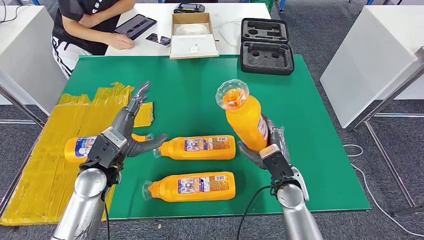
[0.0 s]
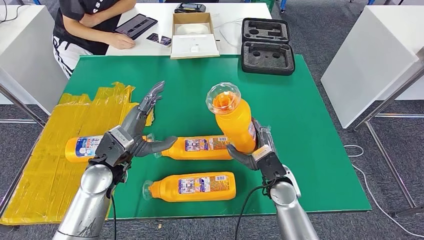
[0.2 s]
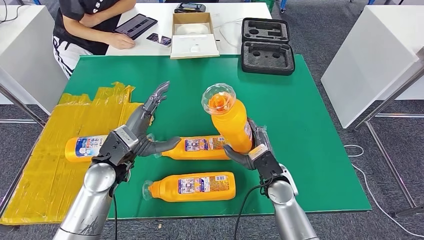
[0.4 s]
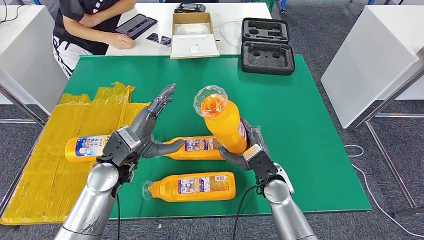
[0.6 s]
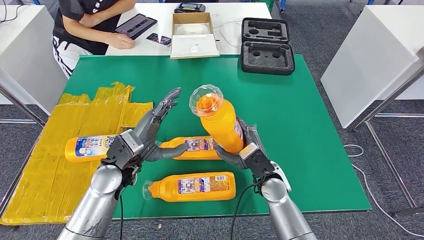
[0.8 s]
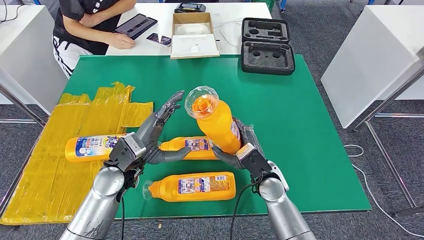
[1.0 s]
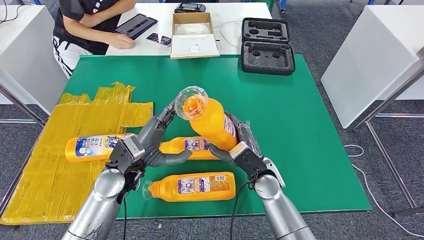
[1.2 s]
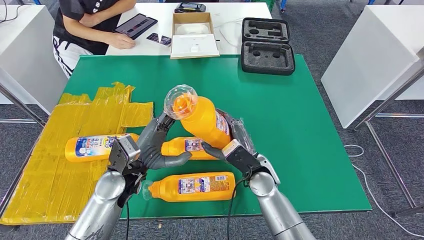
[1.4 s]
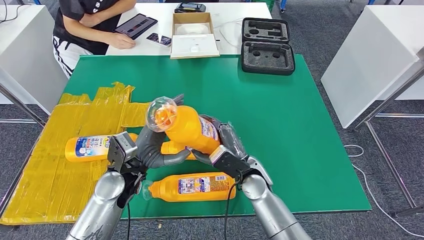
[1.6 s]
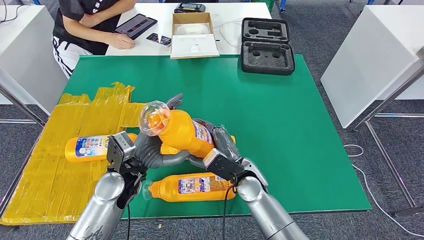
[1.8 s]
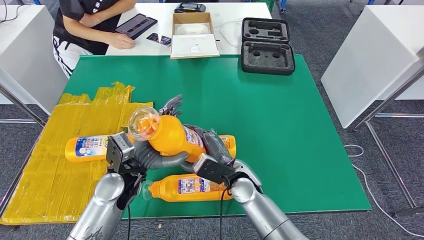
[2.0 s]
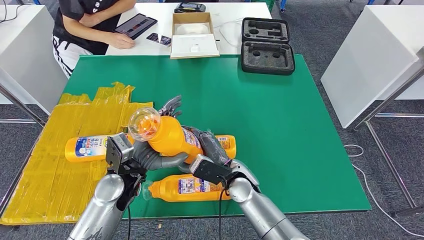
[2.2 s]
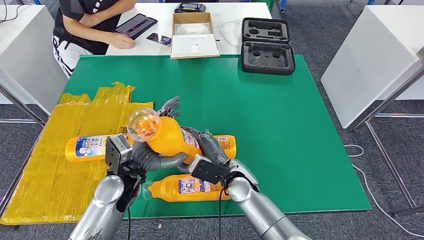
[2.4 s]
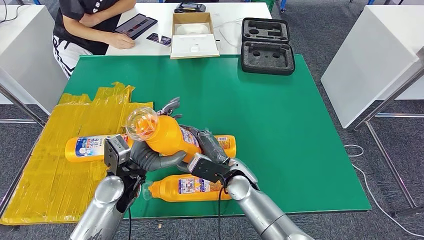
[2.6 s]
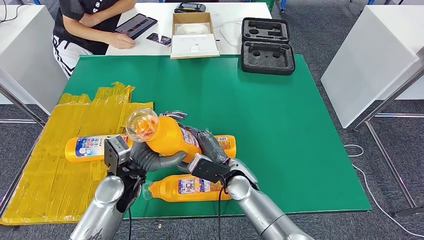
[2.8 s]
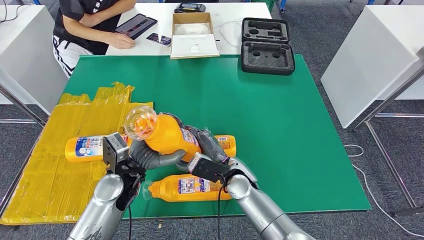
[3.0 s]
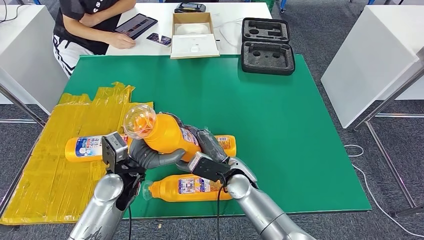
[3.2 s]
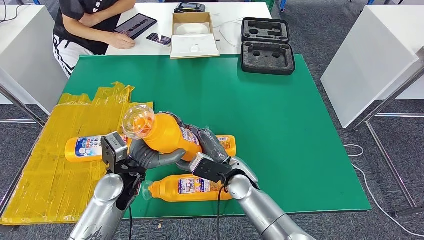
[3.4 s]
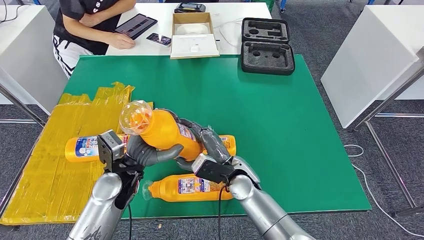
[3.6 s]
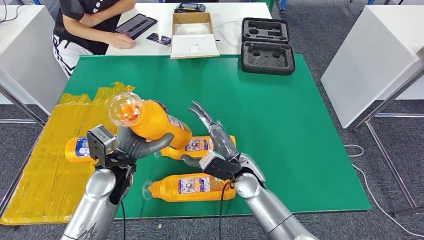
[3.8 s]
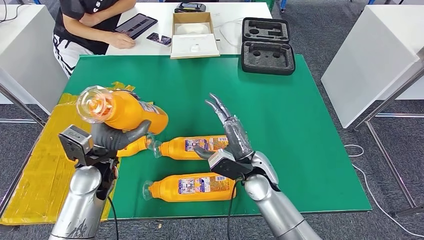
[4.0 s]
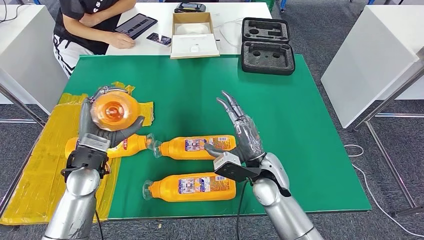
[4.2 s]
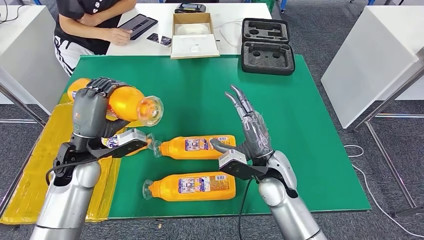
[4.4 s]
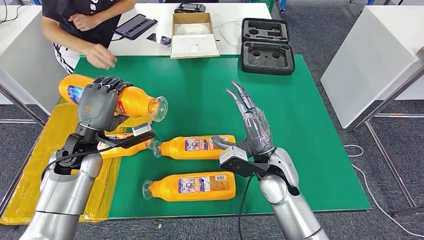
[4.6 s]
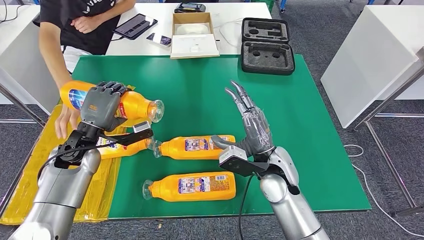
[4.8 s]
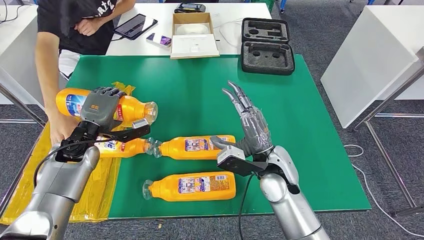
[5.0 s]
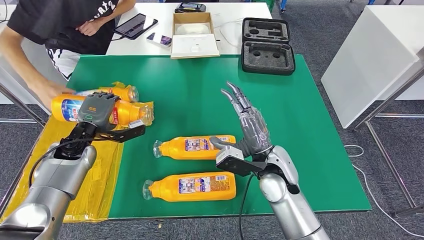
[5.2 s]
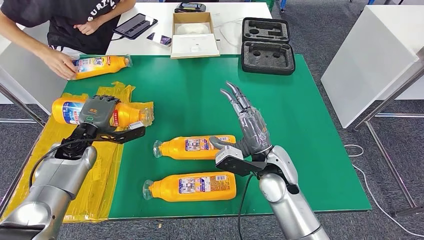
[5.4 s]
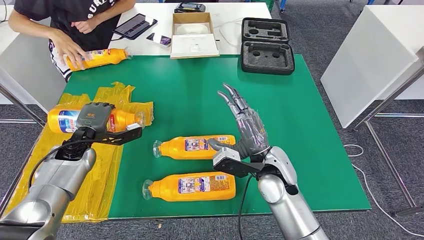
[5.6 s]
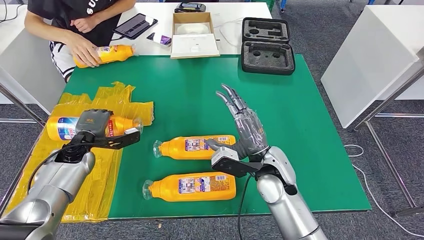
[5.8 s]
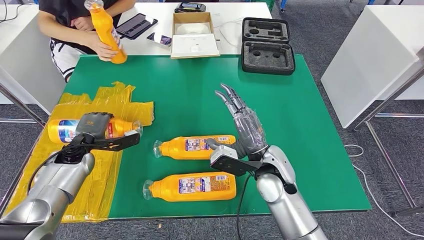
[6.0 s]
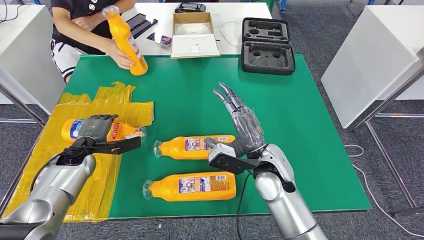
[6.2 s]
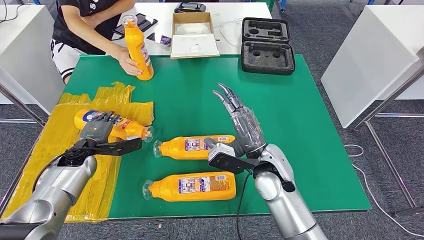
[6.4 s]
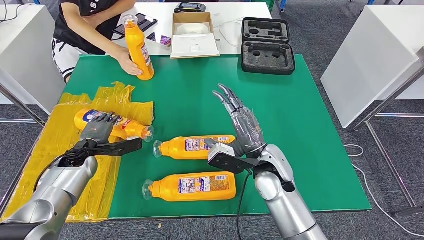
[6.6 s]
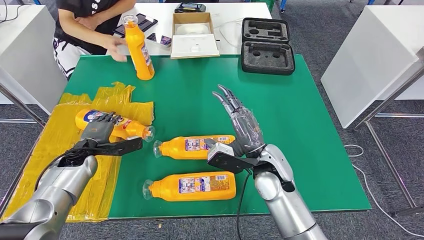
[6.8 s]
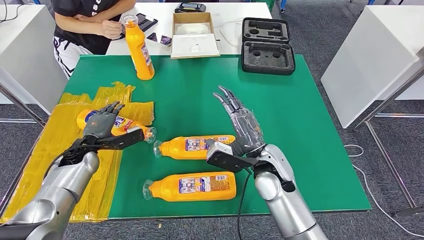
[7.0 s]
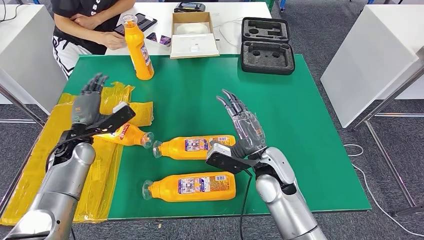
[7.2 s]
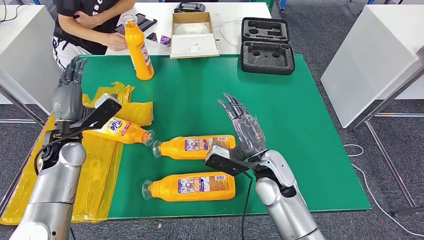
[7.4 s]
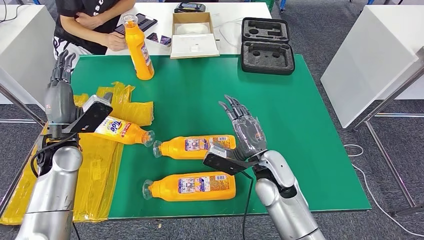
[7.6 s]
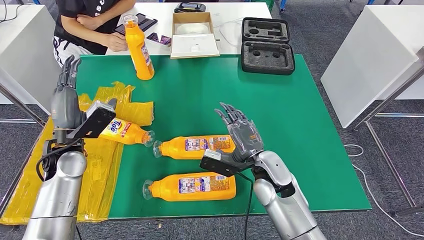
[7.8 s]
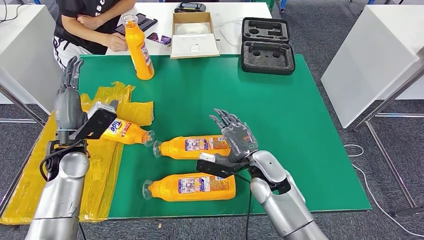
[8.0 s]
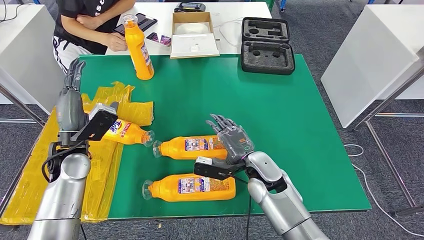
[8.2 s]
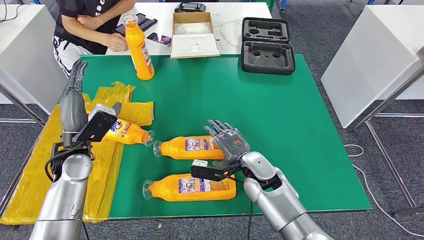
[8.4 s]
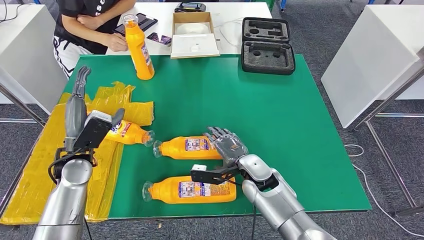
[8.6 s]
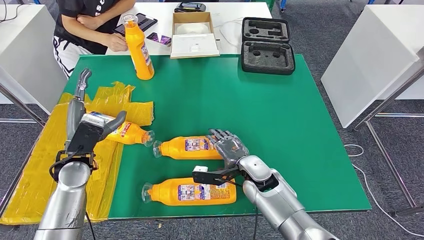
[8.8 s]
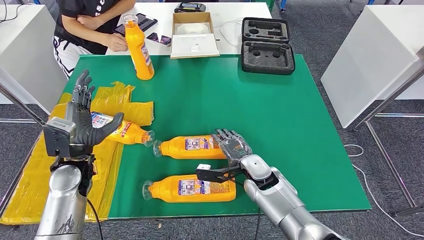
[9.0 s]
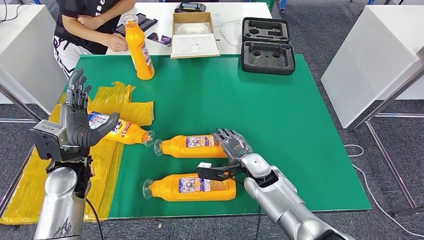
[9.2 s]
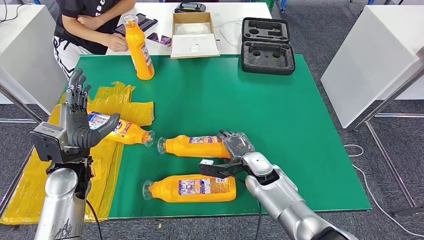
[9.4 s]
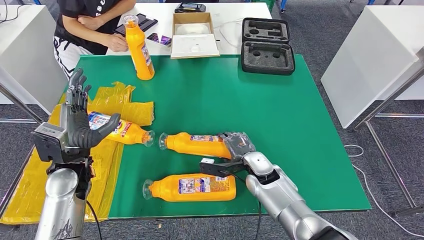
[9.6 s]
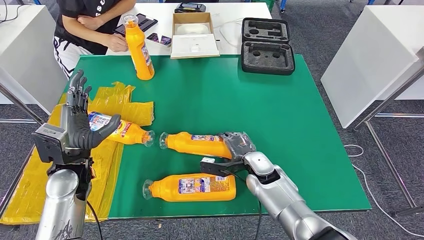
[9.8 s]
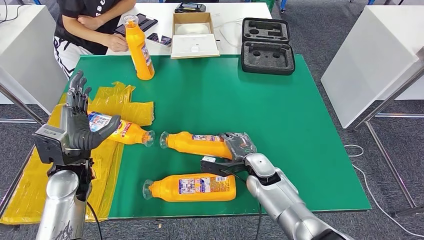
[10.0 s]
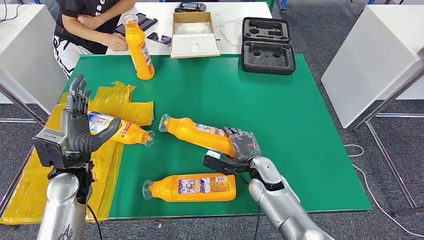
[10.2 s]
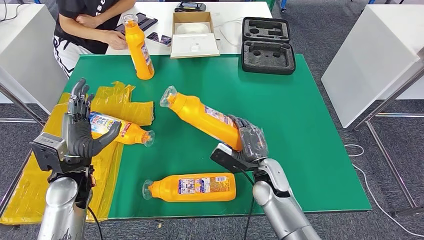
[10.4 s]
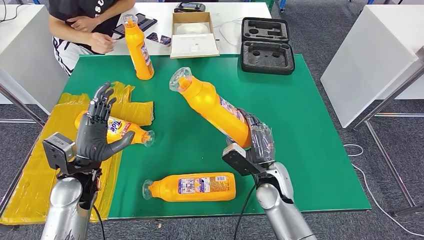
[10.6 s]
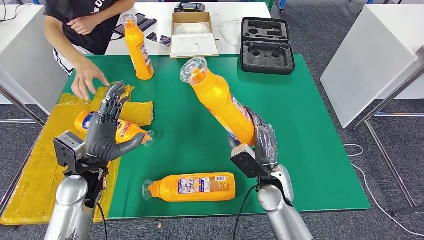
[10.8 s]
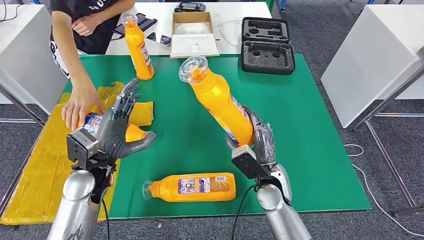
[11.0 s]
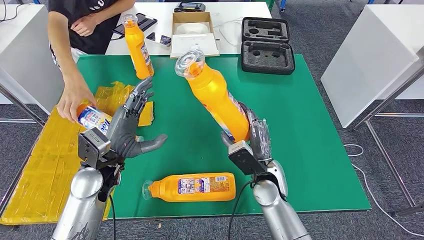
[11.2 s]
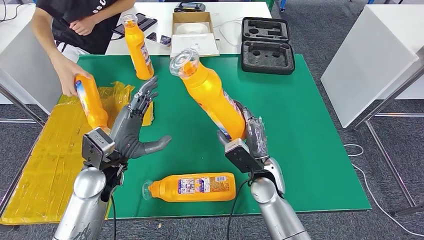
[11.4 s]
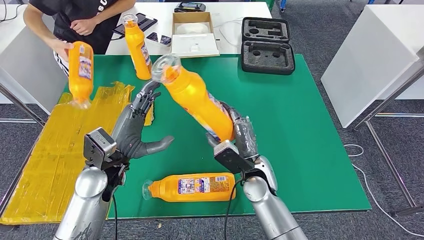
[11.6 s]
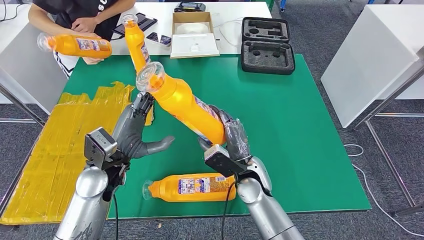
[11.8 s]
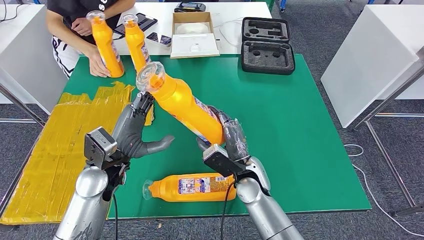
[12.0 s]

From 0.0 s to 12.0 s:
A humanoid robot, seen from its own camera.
Step, from 2.0 s to 3.0 s: Pick up the fast-moving consumer goods bottle from the table.
Step, from 3.4 s to 7.0 s: Flip the fast-moving consumer goods bottle to the front side.
From 0.0 s to 1.6 s: The right hand travels to the left by some 10 cm. The left hand travels to the right by about 5 cm.
From 1.6 s to 3.0 s: There are only small adjustments of the hands.
From 4.4 s to 6.0 s: The left hand goes roughly 15 cm downward, to the left and forward.
From 6.0 s to 7.6 s: The left hand travels upward by approximately 10 cm.
From 7.6 s to 9.0 s: The right hand goes roughly 5 cm downward. Meanwhile the left hand moves approximately 5 cm.

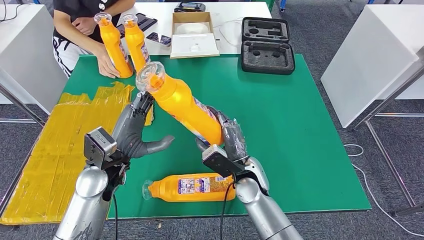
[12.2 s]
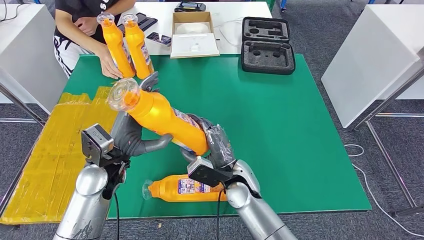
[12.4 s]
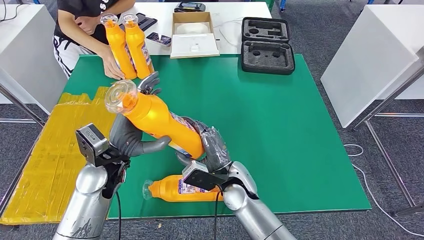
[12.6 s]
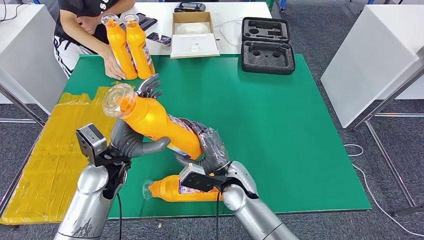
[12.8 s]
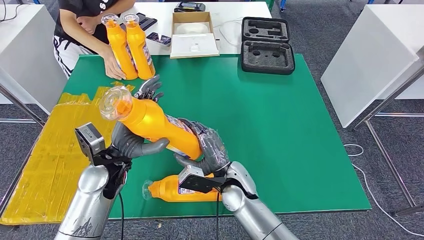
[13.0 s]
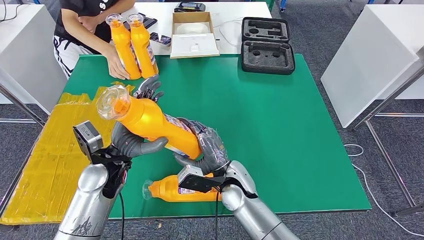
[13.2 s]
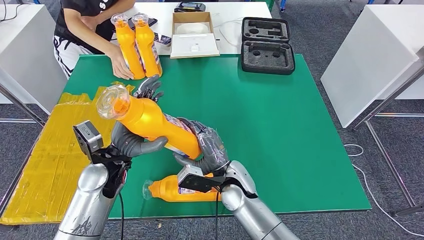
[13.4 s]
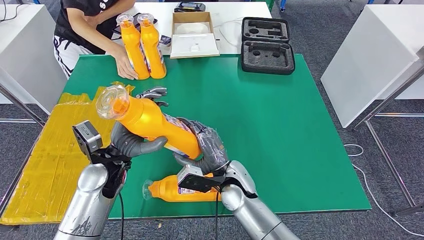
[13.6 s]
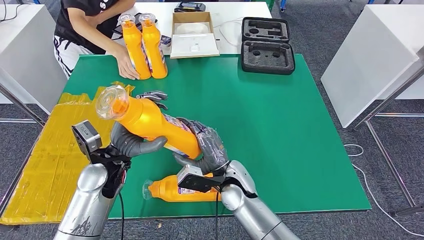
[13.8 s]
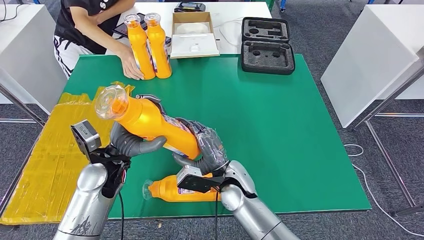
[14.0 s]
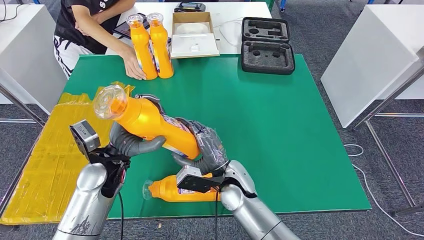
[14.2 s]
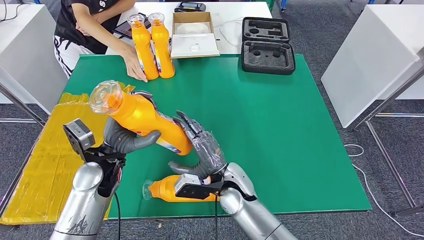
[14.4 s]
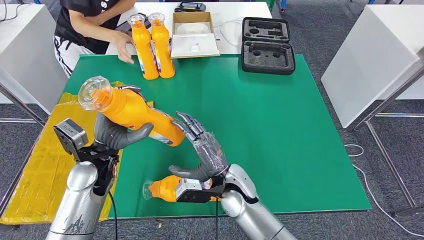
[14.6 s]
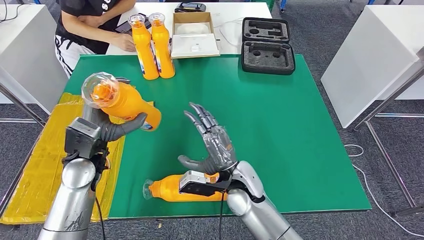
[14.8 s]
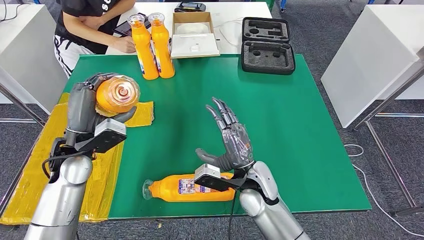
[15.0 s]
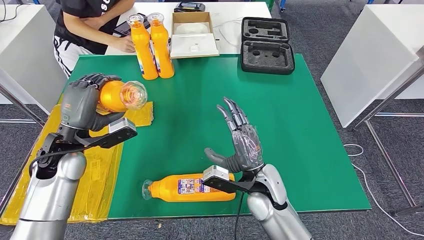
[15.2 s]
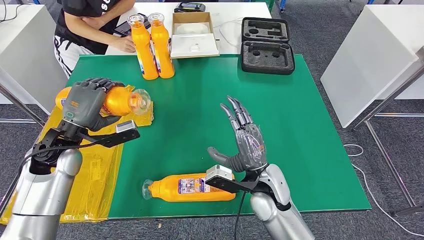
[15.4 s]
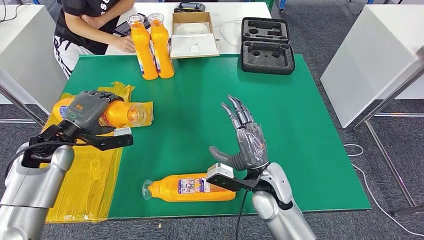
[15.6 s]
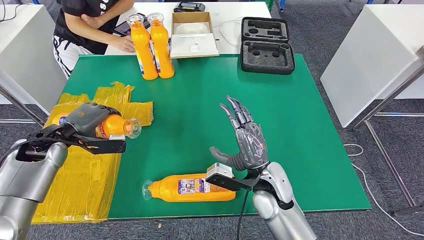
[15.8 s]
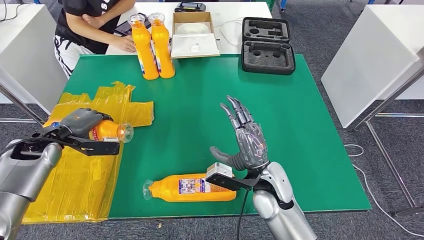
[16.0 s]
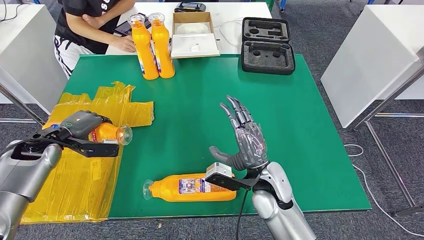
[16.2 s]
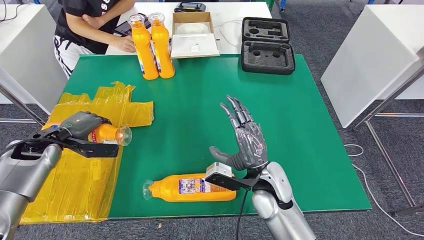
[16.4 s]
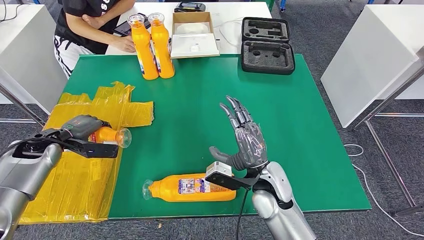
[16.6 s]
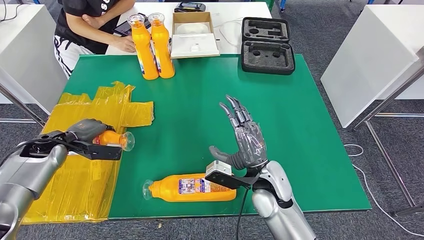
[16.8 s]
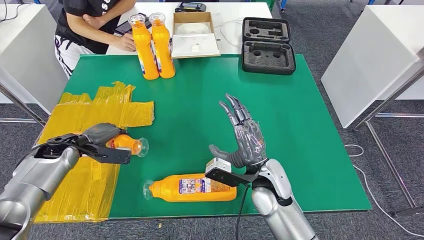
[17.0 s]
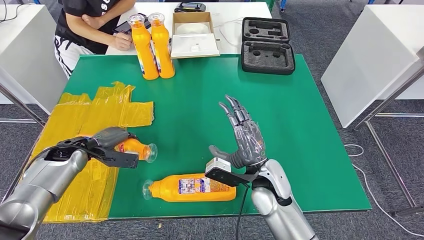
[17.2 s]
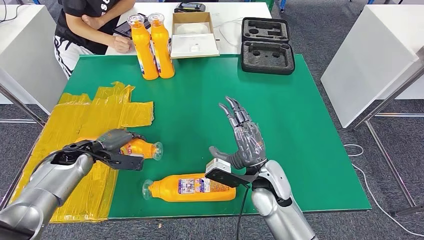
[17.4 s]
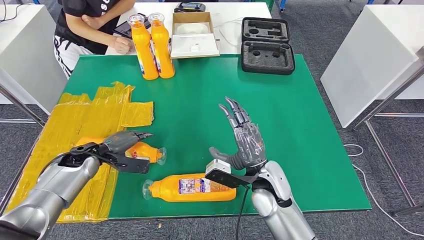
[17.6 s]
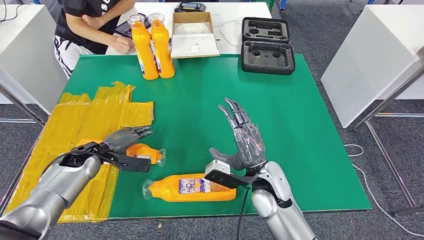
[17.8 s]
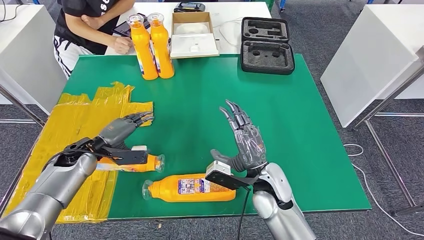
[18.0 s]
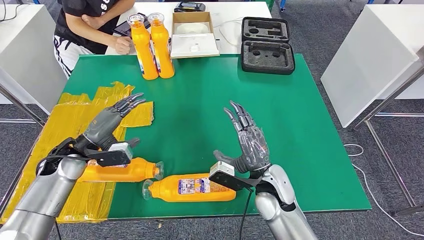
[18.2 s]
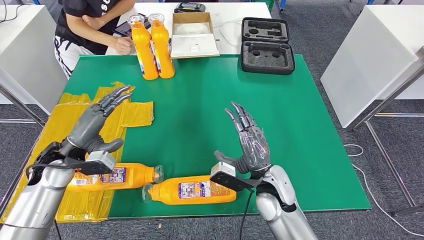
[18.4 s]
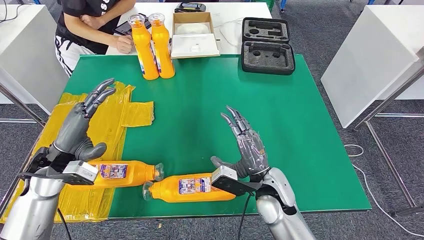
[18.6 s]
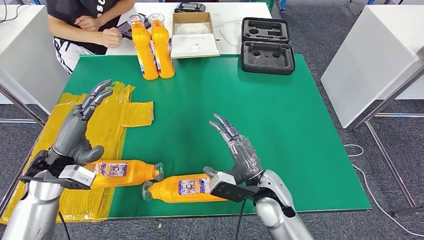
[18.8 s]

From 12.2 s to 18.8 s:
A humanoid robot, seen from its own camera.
Step, from 12.6 s to 16.6 s: Flip the fast-moving consumer goods bottle to the front side.
From 12.2 s to 13.8 s: There are only small adjustments of the hands.
From 15.4 s to 17.2 s: The left hand moves downward, about 10 cm.
From 17.2 s to 18.8 s: The left hand travels backward and upward by roughly 10 cm.
